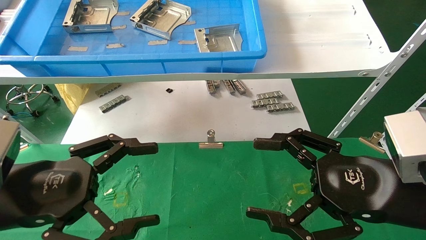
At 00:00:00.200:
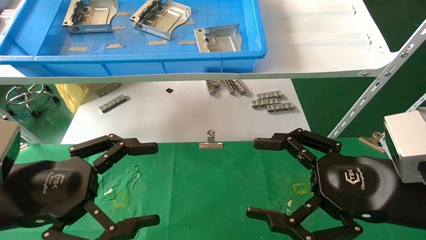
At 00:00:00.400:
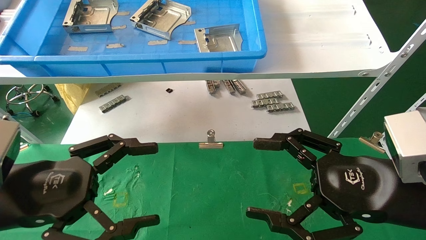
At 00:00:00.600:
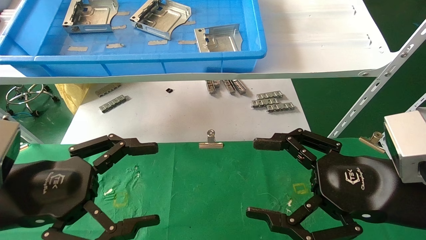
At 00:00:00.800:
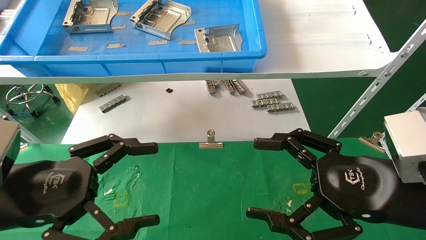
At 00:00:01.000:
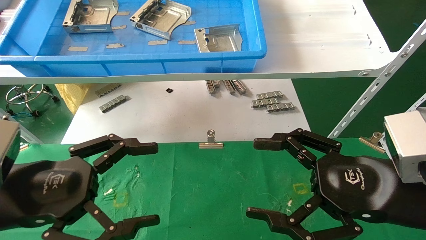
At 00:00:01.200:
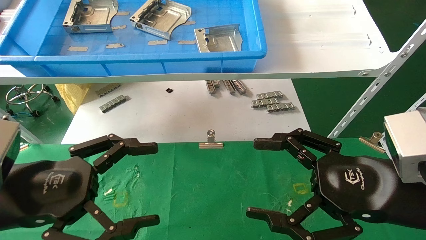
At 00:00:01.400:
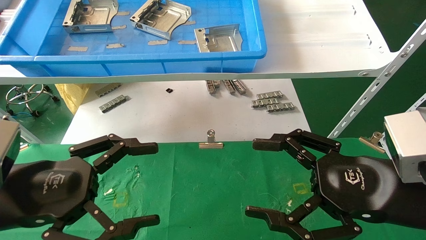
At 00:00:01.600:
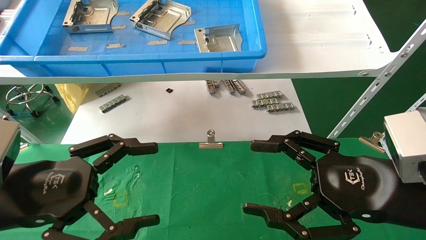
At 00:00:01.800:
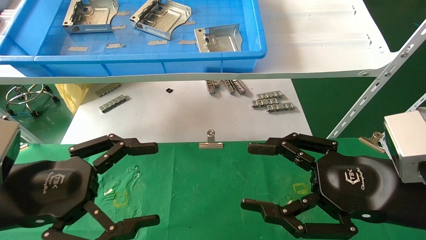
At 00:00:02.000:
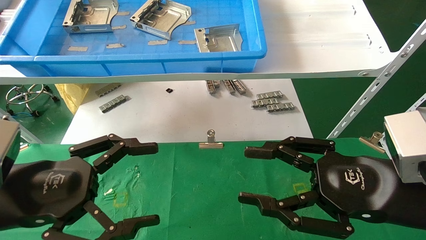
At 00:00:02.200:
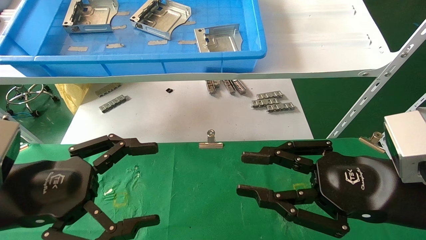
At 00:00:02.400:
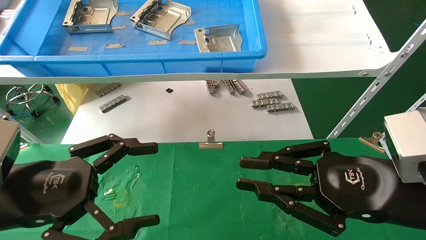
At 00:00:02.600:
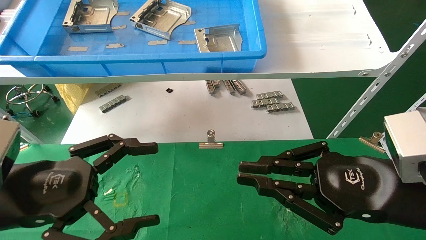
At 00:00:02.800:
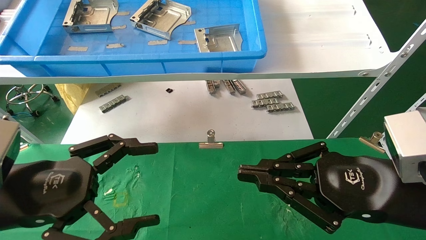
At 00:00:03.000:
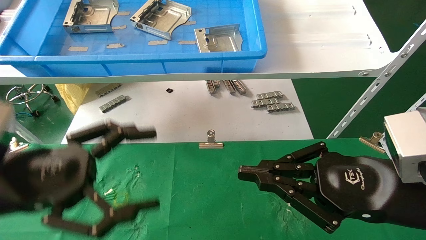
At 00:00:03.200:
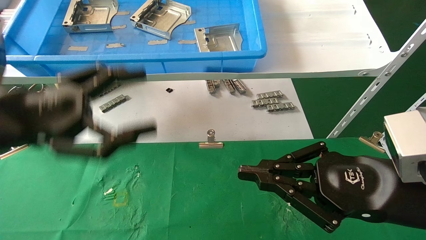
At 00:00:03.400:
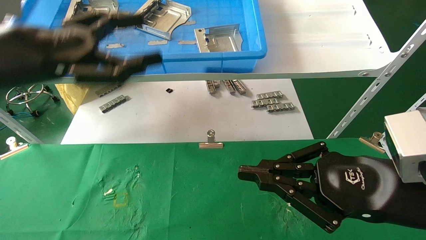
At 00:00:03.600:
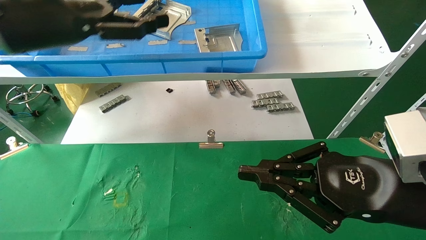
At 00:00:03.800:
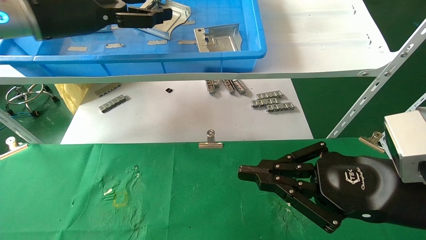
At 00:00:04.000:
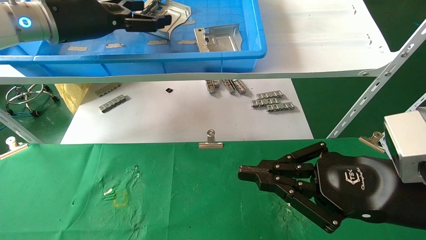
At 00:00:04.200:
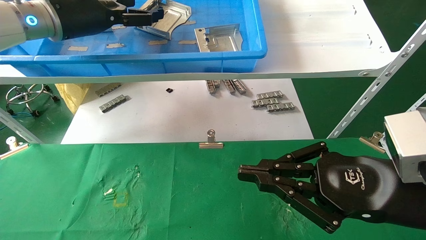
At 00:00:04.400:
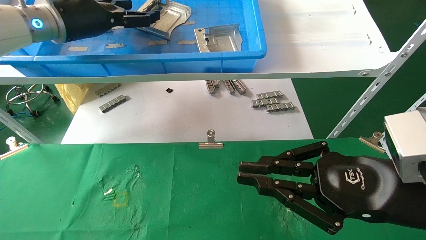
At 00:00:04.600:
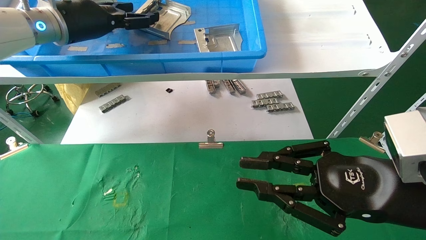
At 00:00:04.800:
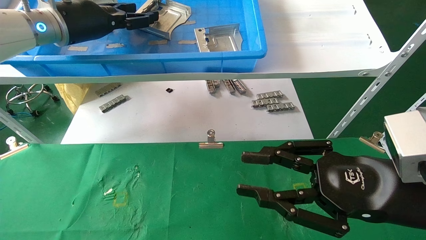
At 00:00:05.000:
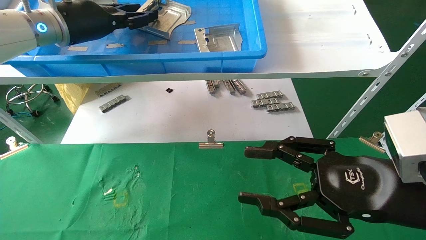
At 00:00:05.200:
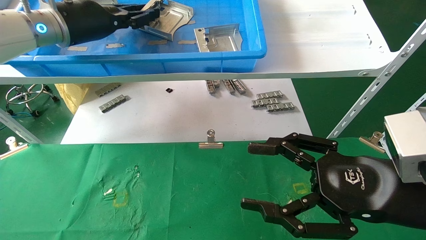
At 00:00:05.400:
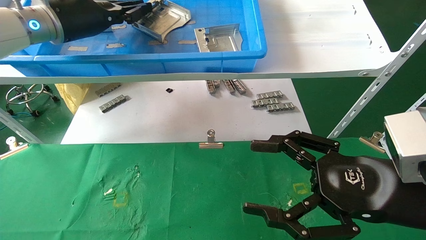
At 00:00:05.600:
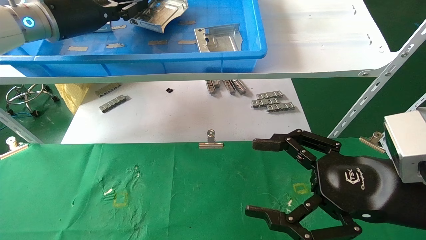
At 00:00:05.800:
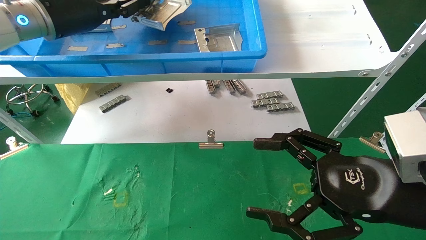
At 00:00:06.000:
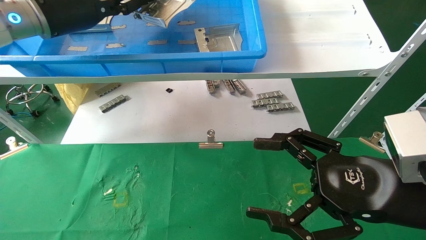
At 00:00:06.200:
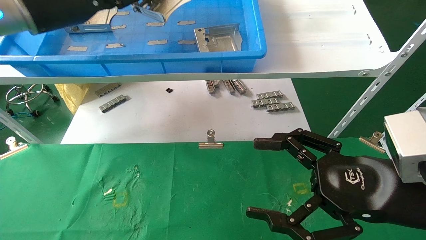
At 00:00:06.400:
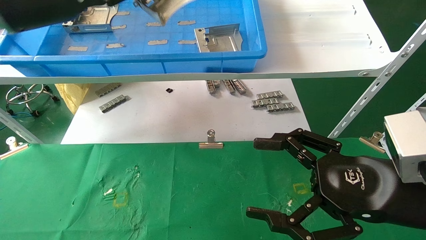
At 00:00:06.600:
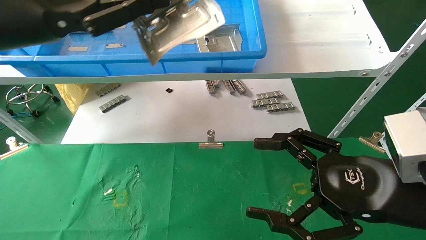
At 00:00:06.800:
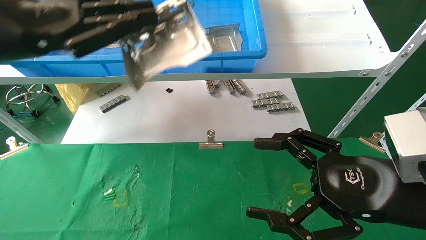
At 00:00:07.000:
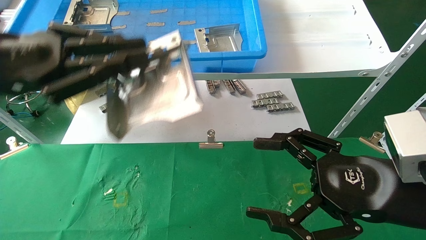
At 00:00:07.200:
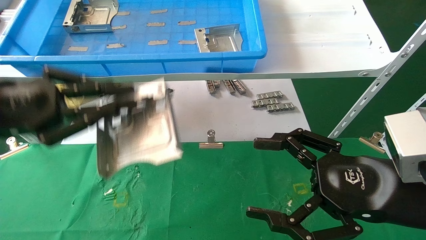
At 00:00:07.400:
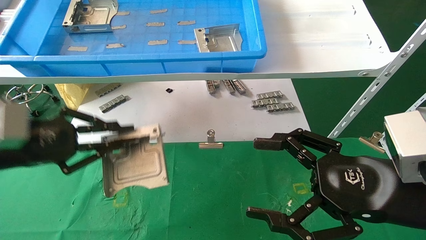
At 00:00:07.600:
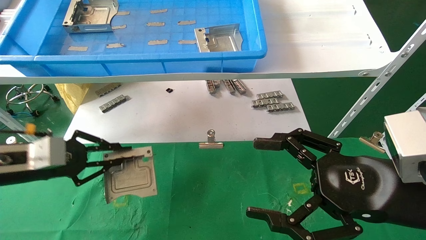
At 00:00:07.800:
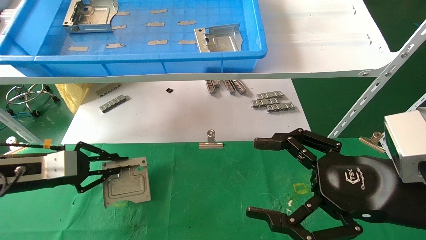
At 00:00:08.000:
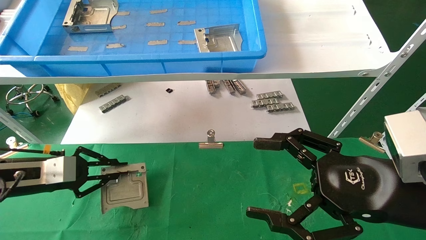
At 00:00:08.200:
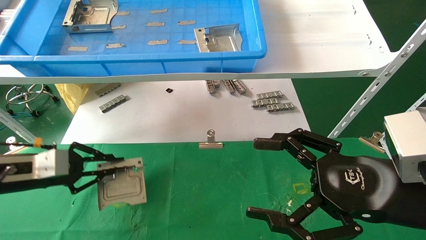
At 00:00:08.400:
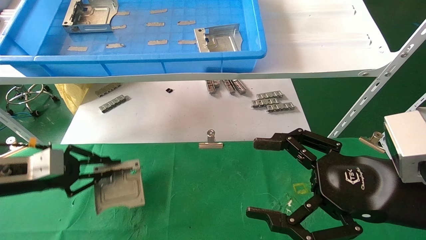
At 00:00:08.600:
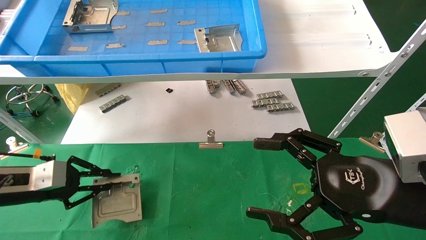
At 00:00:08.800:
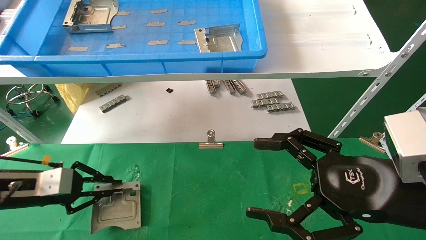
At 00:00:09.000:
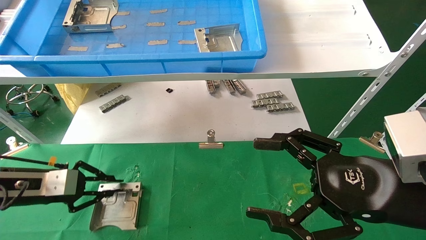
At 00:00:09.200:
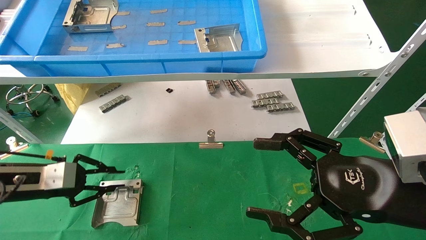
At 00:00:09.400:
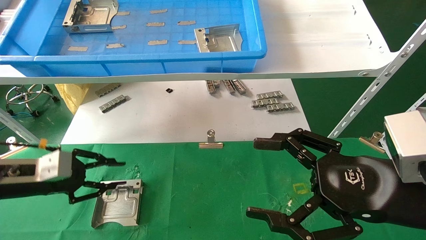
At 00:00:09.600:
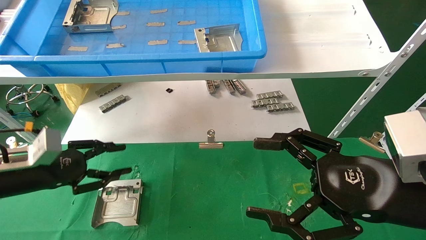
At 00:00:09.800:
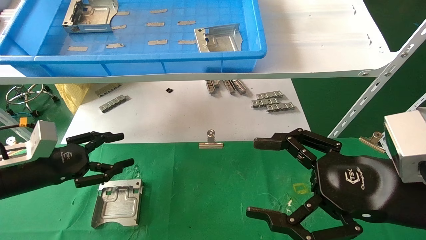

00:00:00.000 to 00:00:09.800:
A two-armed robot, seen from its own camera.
Task of the whole recording: use the mechanical arm to pick up the parts and place them on the table.
Step, 00:00:03.400 to 00:00:05.400: Pick up the hard drive bracket from the feeding area.
Step, 00:00:05.600 to 00:00:09.600: Place the hard drive bracket into the box.
00:00:00.000 to 00:00:01.400: Both grippers stay about where they are.
00:00:01.400 to 00:00:02.800: The right gripper closes.
00:00:02.800 to 00:00:04.200: The left gripper goes approximately 30 cm forward and upward.
00:00:04.200 to 00:00:05.600: The left gripper closes; the right gripper opens its fingers.
00:00:05.600 to 00:00:07.000: The left gripper travels backward and downward by about 20 cm.
00:00:07.000 to 00:00:08.400: The left gripper heads downward and to the left, covering approximately 20 cm.
00:00:08.400 to 00:00:09.800: The left gripper opens its fingers.

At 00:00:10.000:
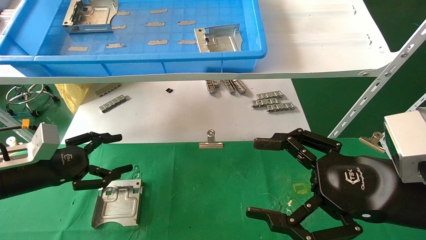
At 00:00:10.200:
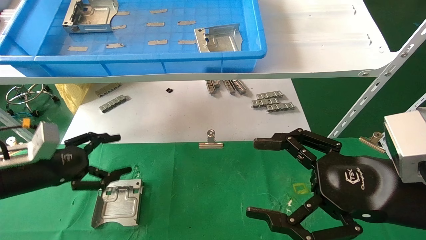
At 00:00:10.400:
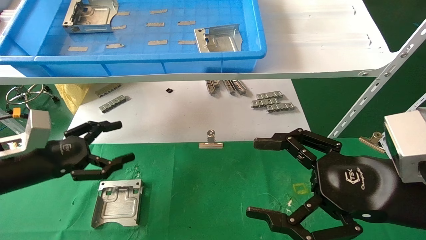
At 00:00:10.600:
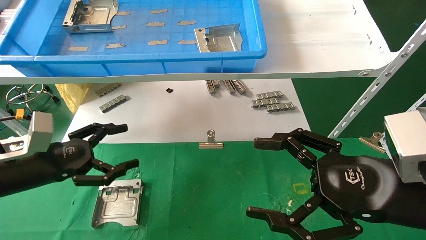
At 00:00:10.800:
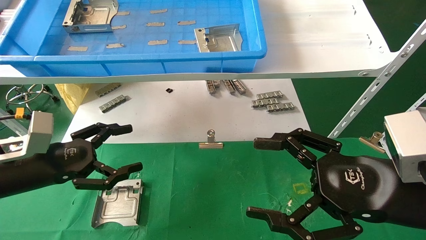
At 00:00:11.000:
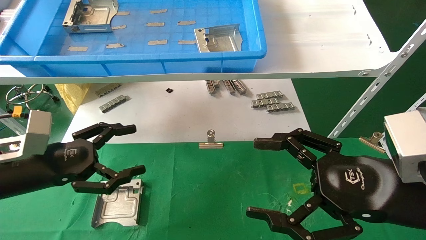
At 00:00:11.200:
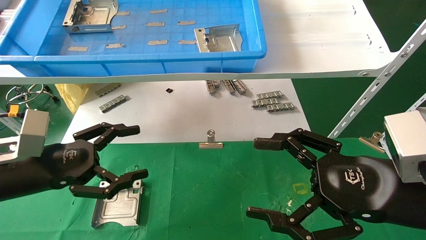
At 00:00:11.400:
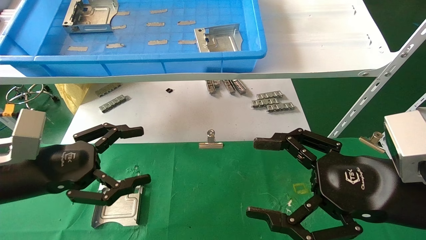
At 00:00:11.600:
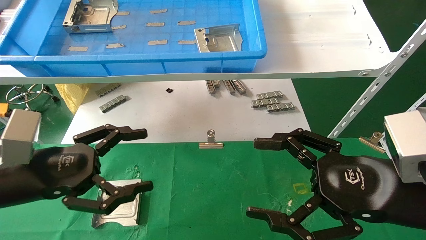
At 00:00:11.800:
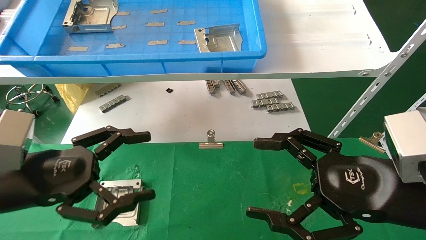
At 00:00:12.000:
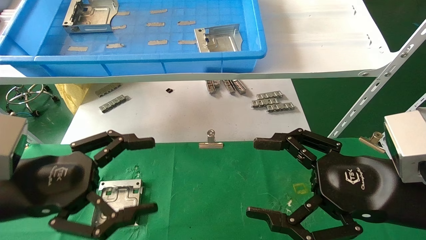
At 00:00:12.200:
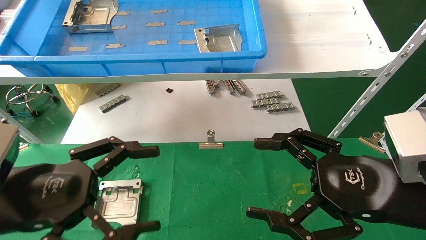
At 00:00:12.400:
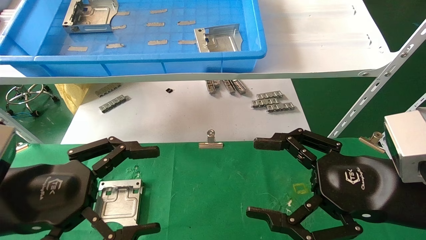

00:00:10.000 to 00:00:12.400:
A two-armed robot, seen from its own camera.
Task of the whole recording: use the mechanical arm to pick up the parts and place them on the table.
00:00:10.000 to 00:00:11.200: The left gripper goes roughly 5 cm to the right.
00:00:11.200 to 00:00:12.400: The left gripper shifts roughly 10 cm backward.
